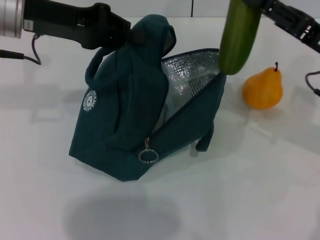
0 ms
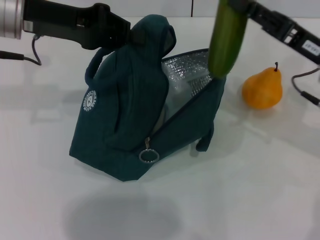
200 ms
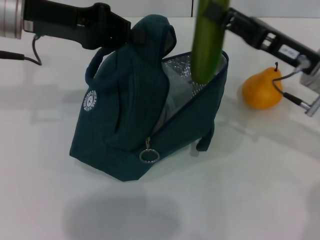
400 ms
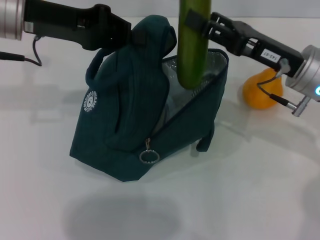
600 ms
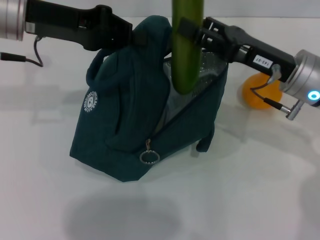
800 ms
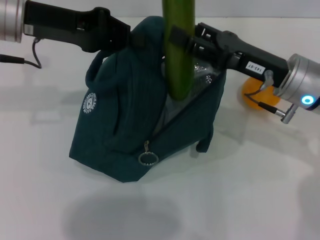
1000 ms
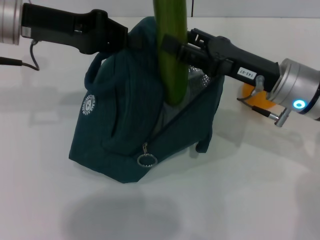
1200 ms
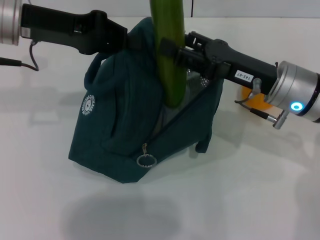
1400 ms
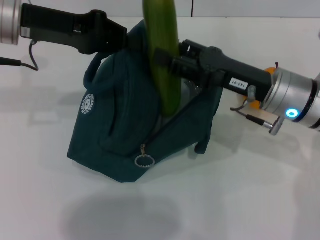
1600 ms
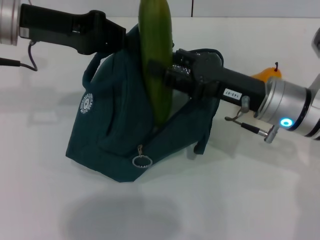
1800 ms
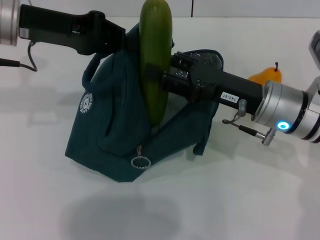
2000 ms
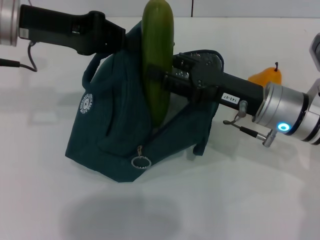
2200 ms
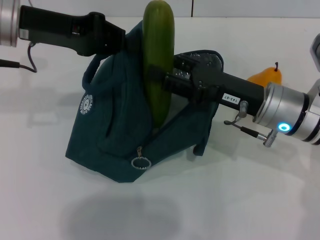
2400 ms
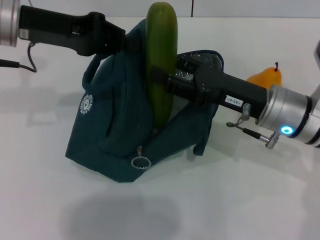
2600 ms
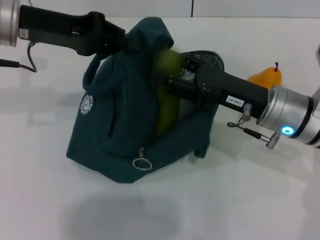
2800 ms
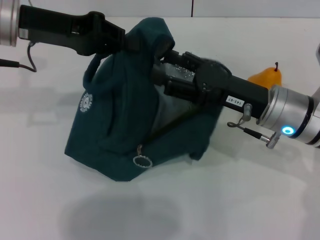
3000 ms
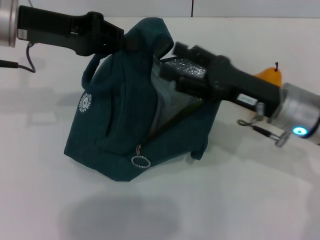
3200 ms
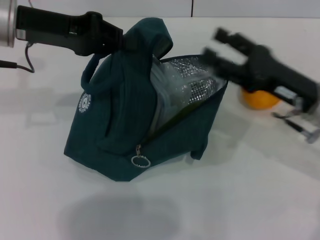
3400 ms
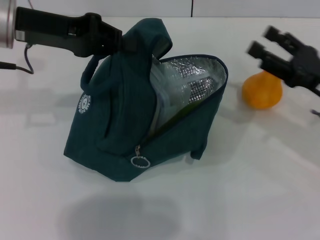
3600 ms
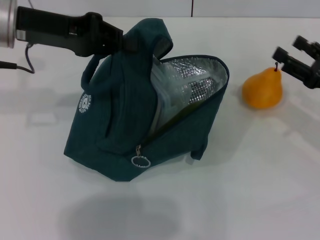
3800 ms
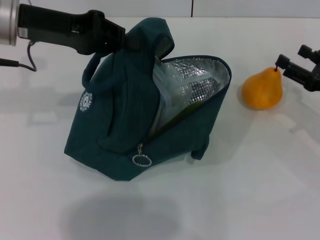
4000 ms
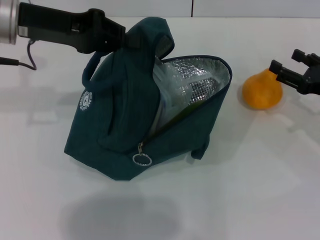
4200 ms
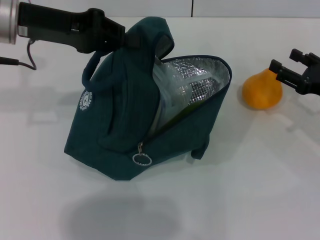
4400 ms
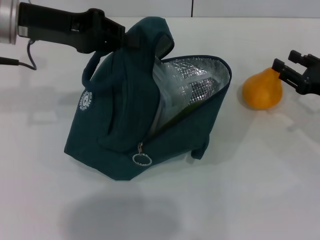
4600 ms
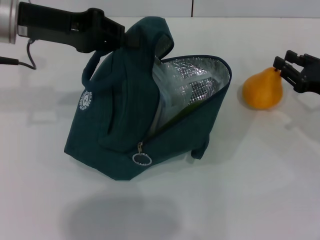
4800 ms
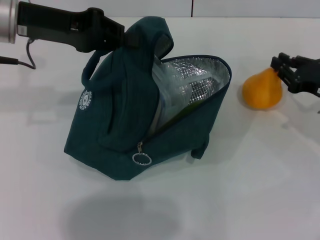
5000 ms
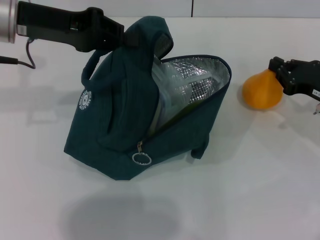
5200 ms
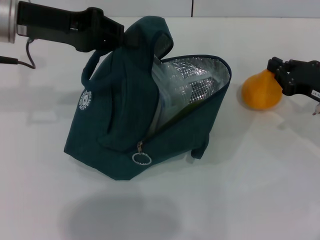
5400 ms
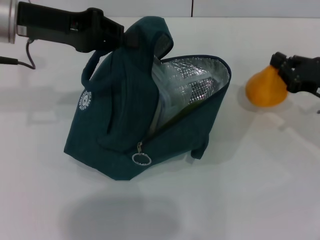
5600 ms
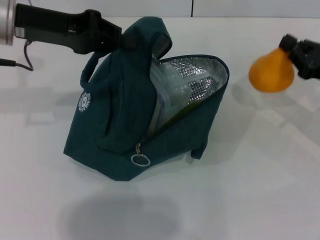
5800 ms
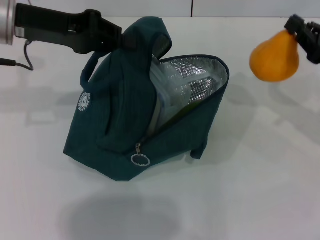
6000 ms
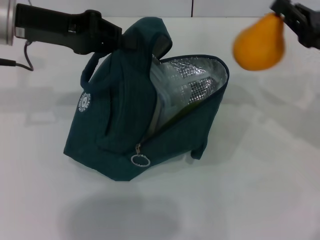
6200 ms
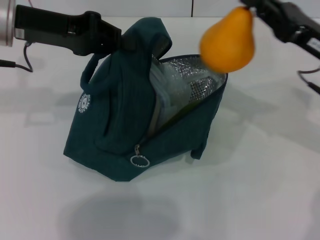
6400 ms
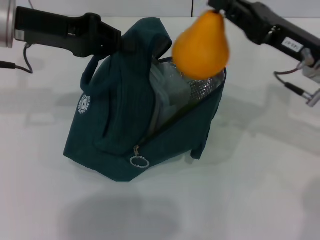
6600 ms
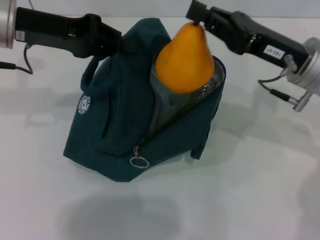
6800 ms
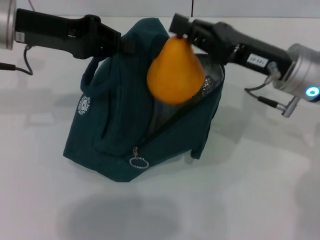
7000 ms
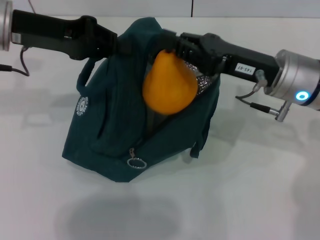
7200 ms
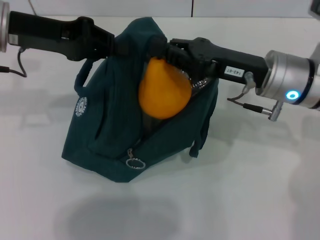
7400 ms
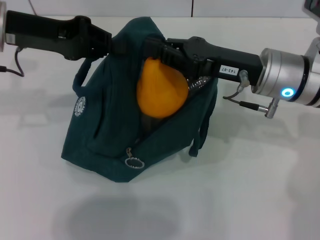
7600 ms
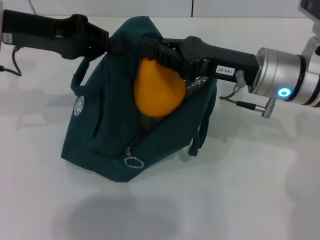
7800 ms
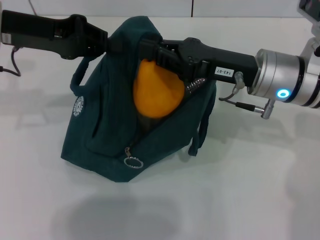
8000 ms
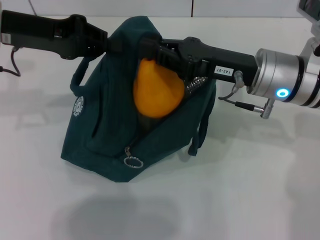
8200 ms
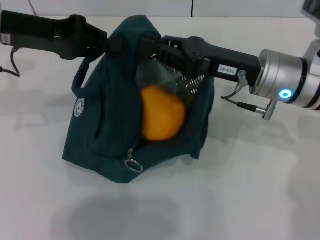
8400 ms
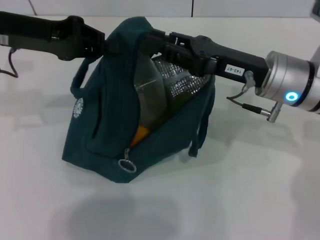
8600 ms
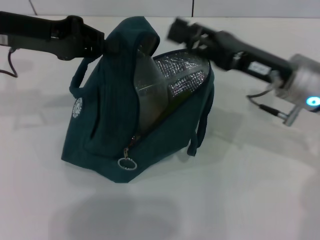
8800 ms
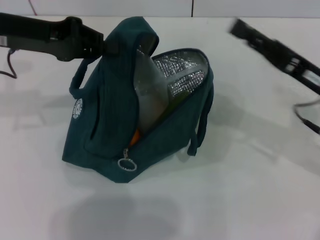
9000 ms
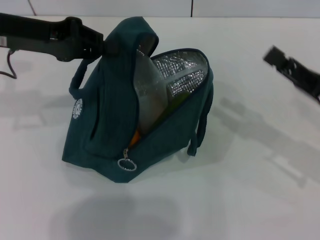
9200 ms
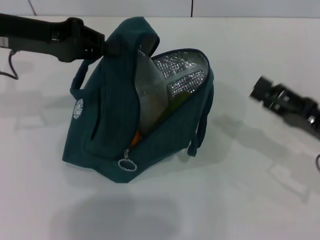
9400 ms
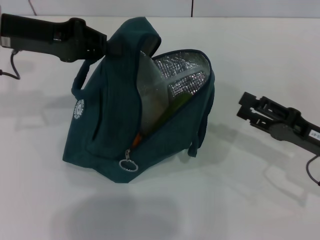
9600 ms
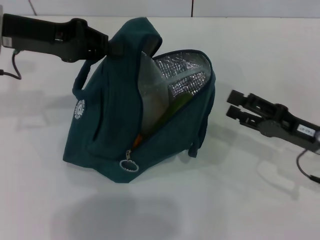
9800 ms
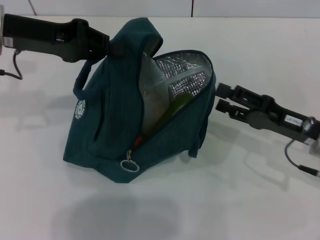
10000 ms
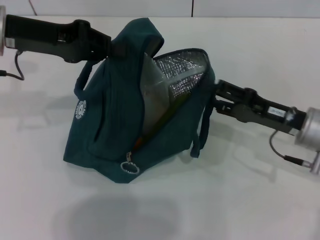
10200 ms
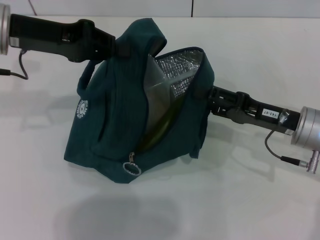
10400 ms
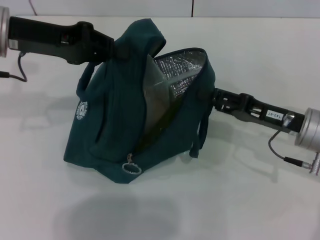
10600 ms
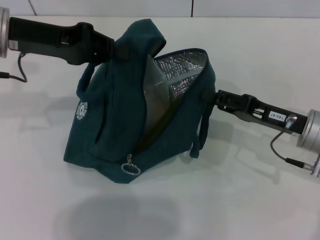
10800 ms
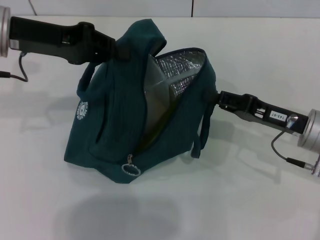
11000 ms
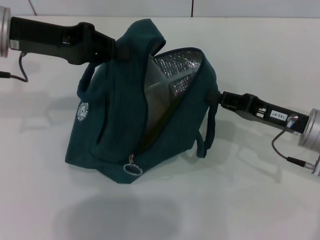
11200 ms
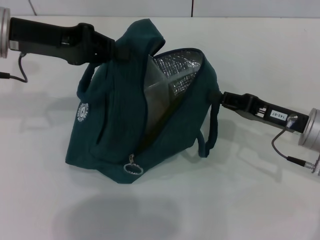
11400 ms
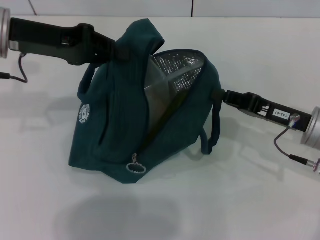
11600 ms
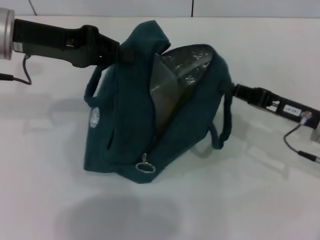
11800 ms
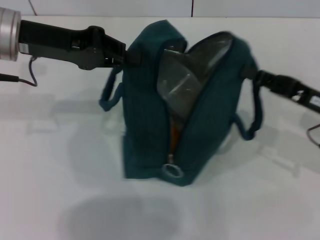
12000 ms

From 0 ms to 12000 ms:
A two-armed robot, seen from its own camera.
Step, from 0 ms to 3000 ms: Put the cucumber into the lunch bag with your right hand.
Step, from 3200 ms to 5200 ms: Grab the pear with your right hand.
From 0 ms to 1600 ms: The right gripper is displaced to the left by approximately 10 cm.
From 1600 ms to 3000 ms: There are only small adjustments of the grippers.
From 3000 ms to 4400 ms: The right gripper heads to the right, covering roughly 15 cm.
From 4400 ms to 6000 ms: The right gripper closes up.
From 6000 ms to 7600 ms: The right gripper is displaced to the left by approximately 15 cm.
From 7600 ms to 9000 ms: The right gripper moves to the right, about 10 cm, and opens up.
From 9000 ms to 10400 ms: The right gripper opens up.
From 10400 ms to 12000 ms: The right gripper moves about 5 cm, and closes.

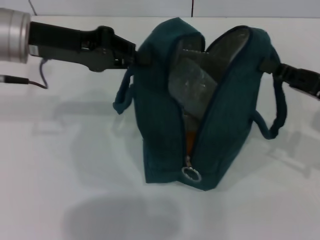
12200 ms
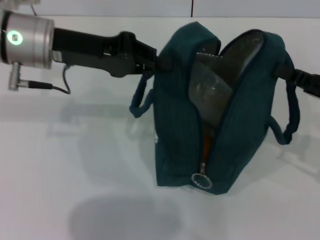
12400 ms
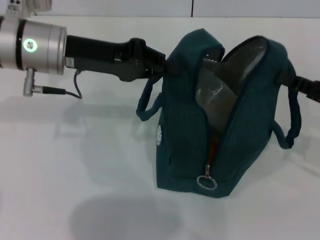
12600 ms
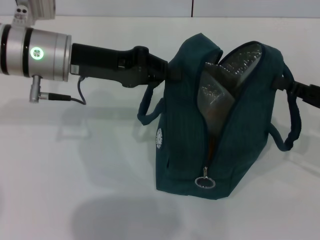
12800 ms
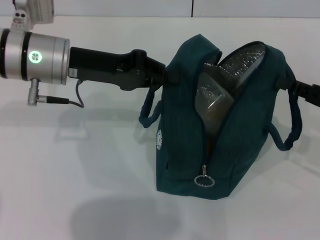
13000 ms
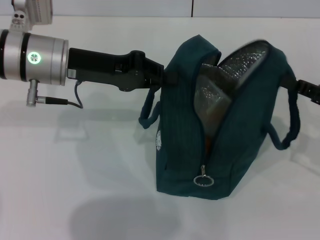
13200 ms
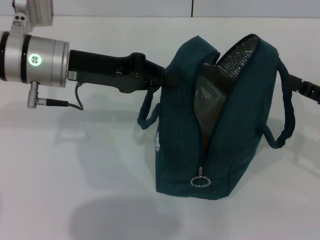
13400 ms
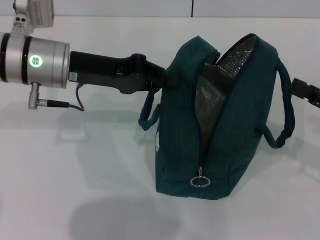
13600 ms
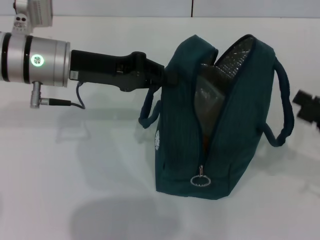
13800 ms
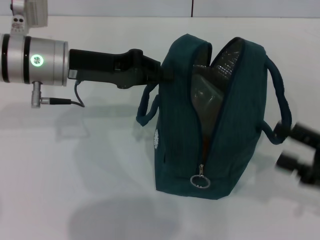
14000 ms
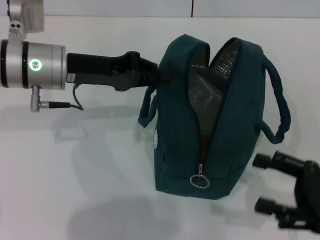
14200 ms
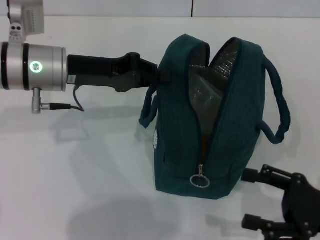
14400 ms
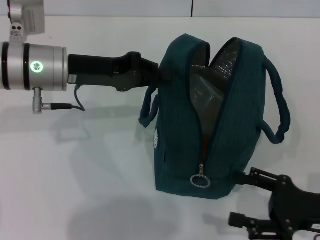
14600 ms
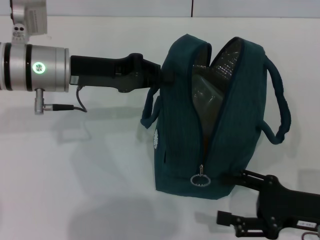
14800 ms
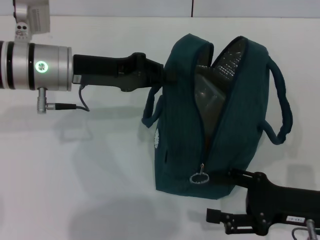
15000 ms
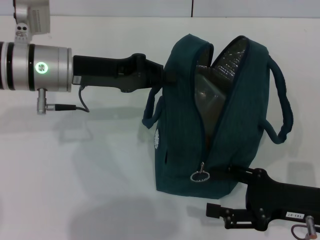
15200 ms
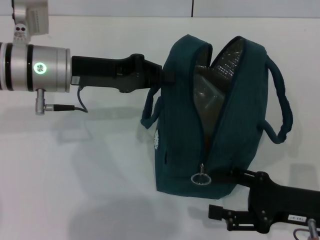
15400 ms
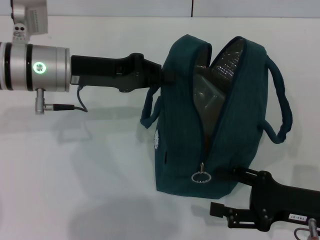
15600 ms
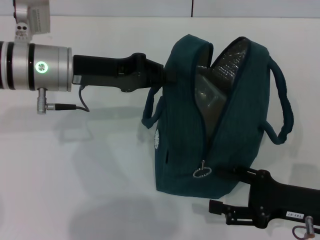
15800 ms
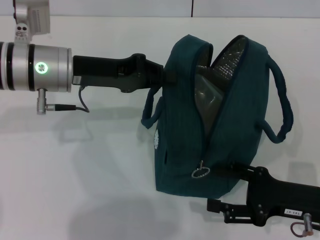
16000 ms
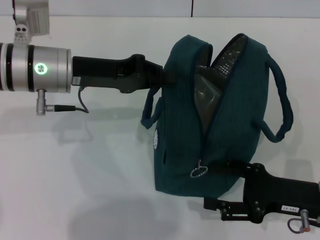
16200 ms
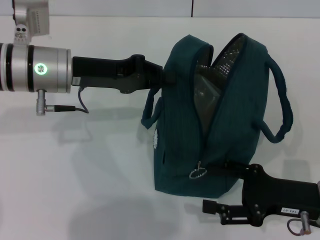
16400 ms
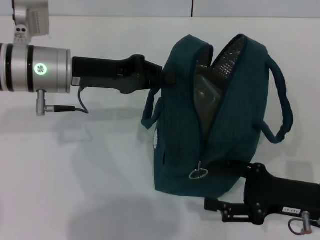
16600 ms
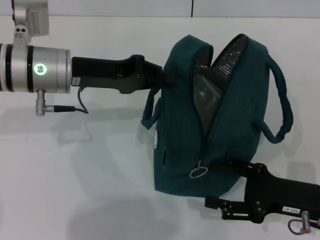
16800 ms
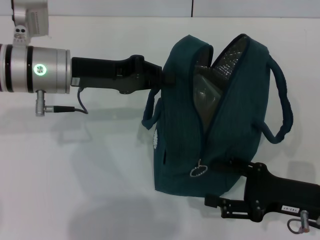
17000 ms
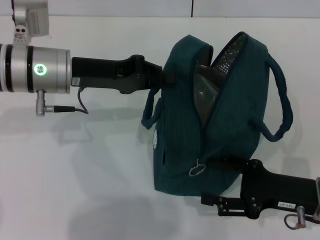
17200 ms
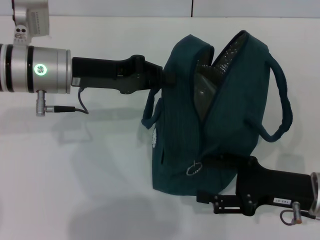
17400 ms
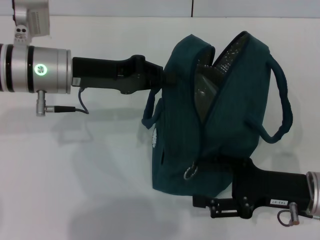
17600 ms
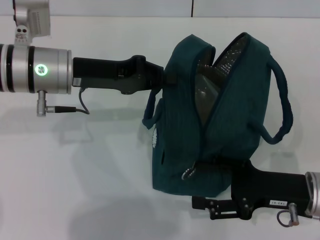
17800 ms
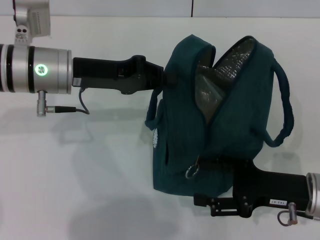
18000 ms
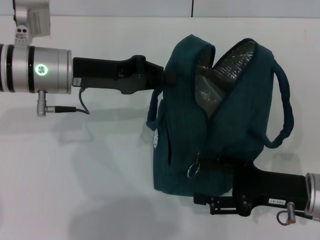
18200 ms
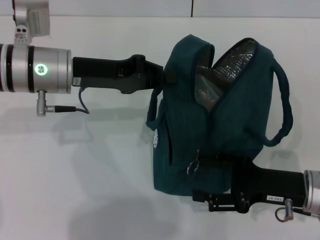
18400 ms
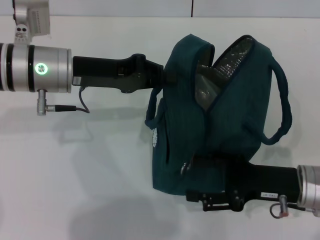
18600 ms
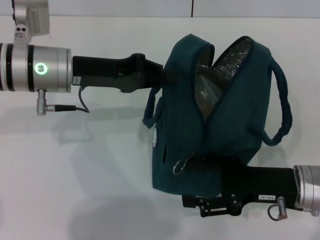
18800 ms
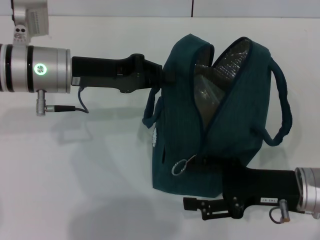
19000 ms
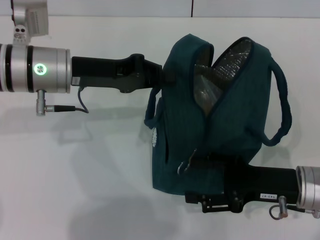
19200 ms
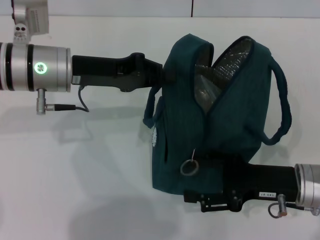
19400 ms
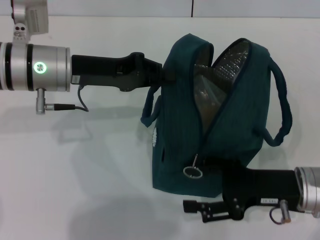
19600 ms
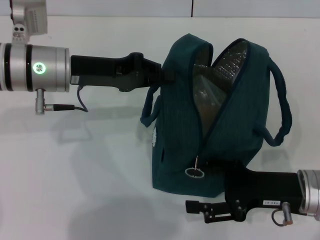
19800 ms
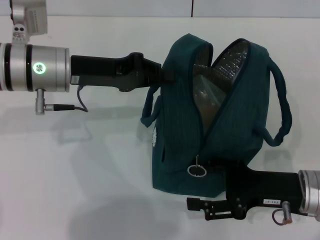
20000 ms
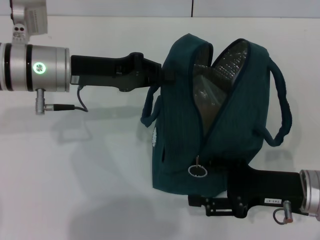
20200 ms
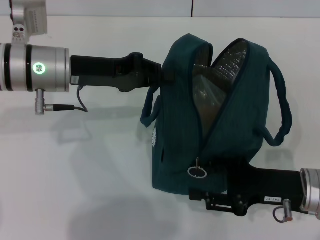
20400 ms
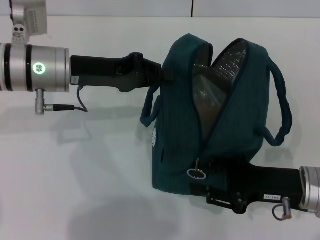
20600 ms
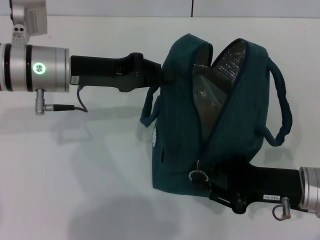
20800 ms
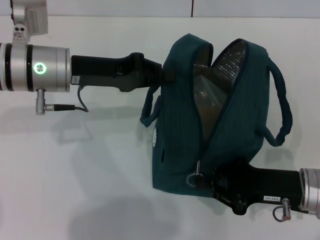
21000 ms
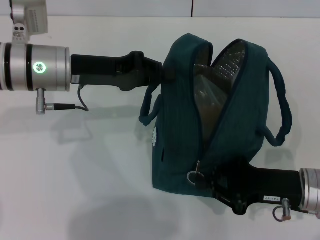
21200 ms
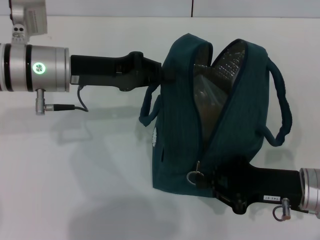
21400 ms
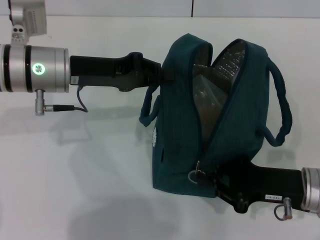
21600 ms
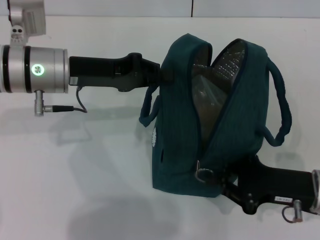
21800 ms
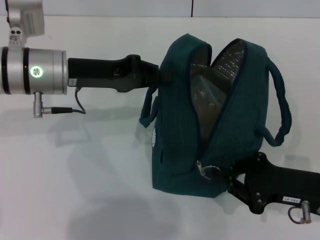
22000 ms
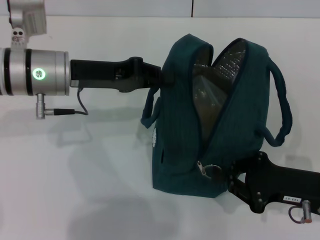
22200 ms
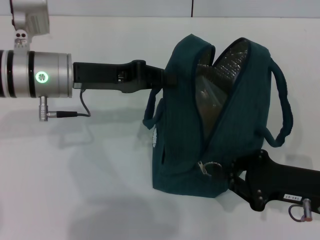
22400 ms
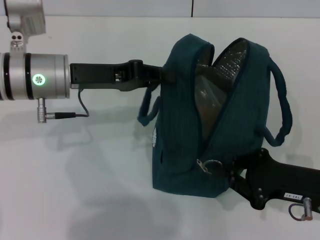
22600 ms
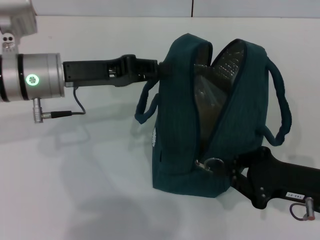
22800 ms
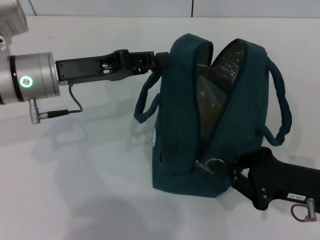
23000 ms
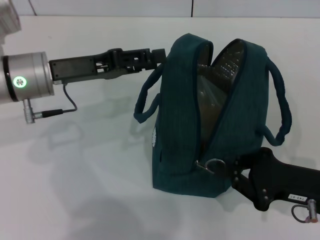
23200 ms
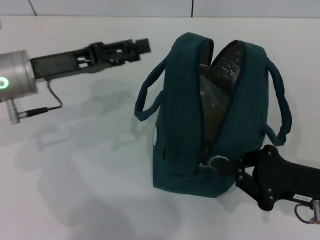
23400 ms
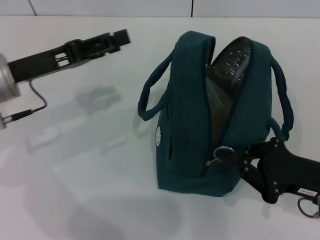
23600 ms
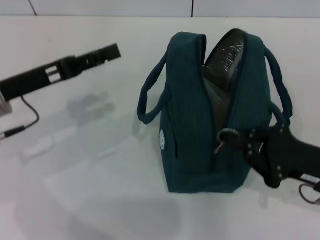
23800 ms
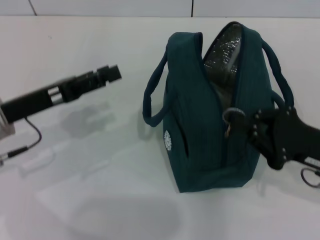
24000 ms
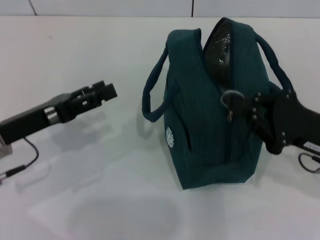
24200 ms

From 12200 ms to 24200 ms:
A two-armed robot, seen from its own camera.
Step, from 13800 ms to 23000 ms: Hold the lunch bag with your left hand.
From 12200 ms to 13800 ms: The left gripper moves roughly 5 cm, while the right gripper heads backward, covering approximately 5 cm, and opens.
From 13800 ms to 15200 ms: The right gripper heads to the left and downward, covering some 10 cm.
From 15200 ms to 16600 ms: The two grippers keep their place.
From 16600 ms to 19800 ms: There are only small adjustments of the grippers.
From 19800 ms to 21200 ms: The right gripper closes.
From 21200 ms to 22600 ms: The grippers stay close to where they were, moving slightly.
From 22600 ms to 24200 ms: The left gripper travels backward, to the left and downward by about 15 cm, and opens its fingers. Meanwhile the right gripper shifts by approximately 5 cm.
